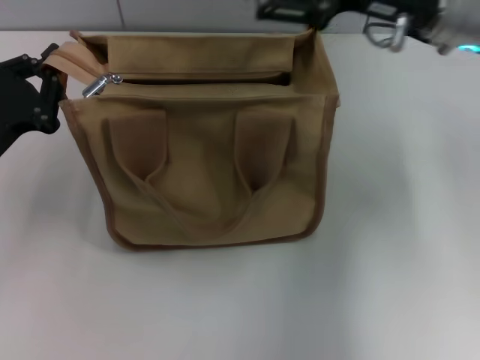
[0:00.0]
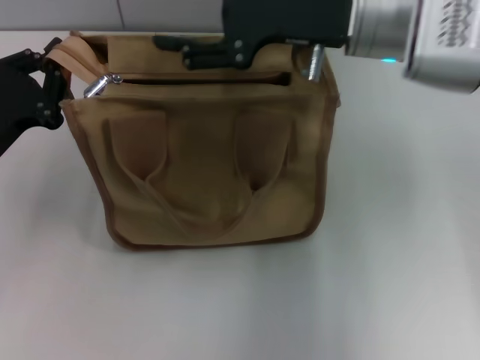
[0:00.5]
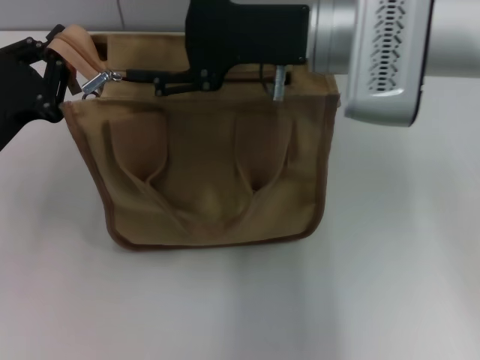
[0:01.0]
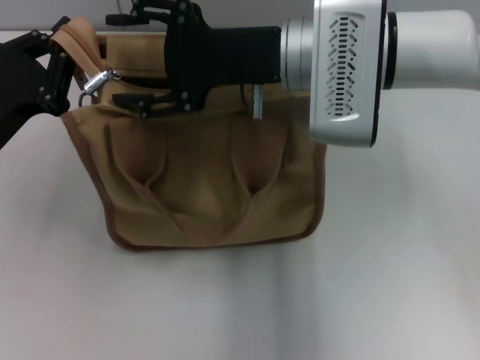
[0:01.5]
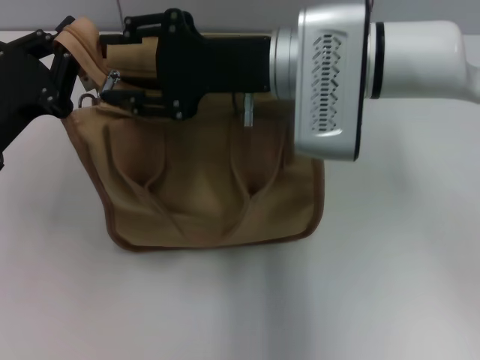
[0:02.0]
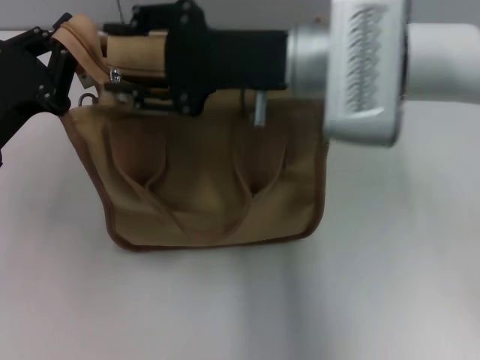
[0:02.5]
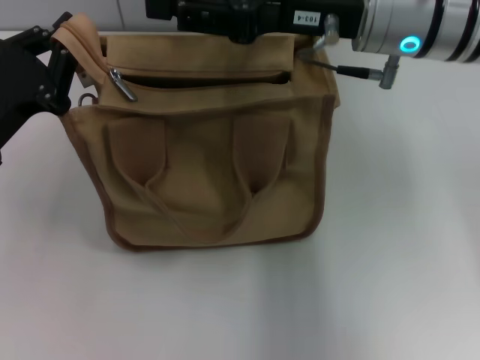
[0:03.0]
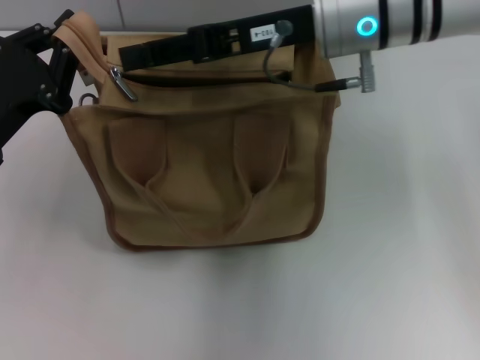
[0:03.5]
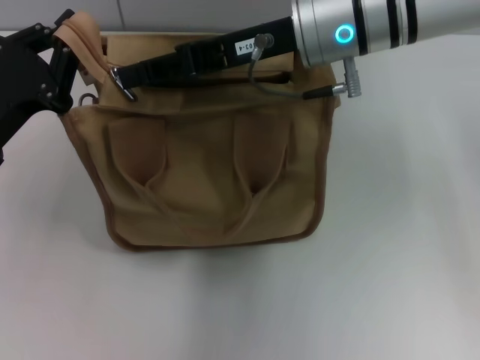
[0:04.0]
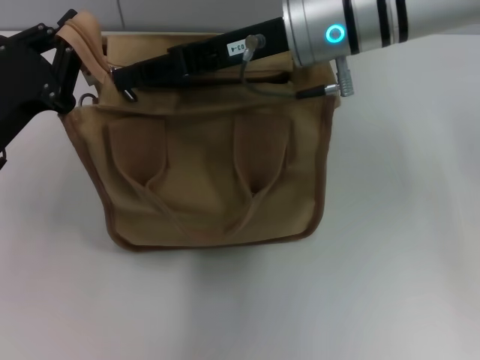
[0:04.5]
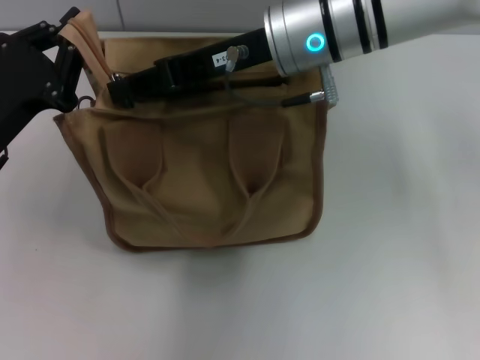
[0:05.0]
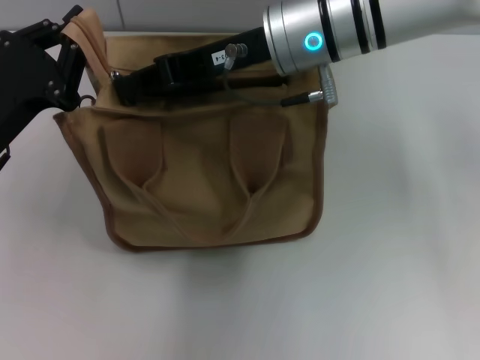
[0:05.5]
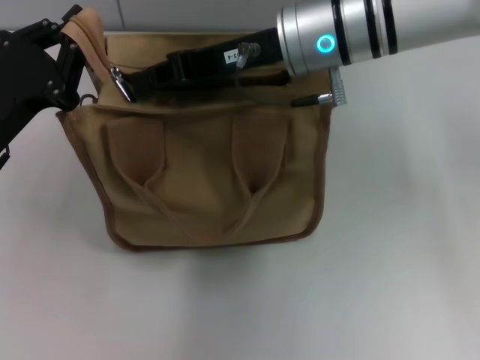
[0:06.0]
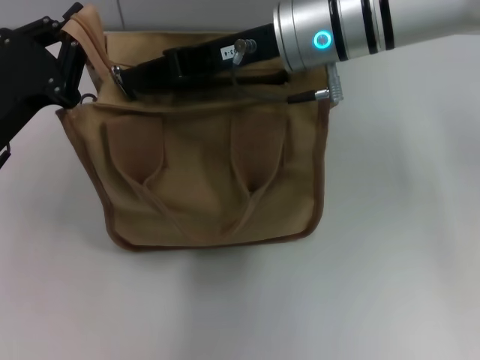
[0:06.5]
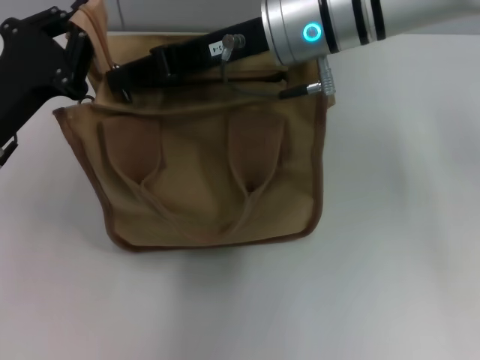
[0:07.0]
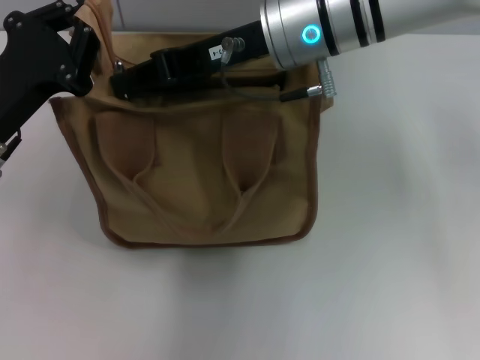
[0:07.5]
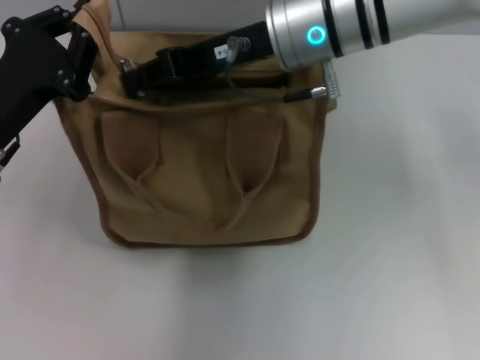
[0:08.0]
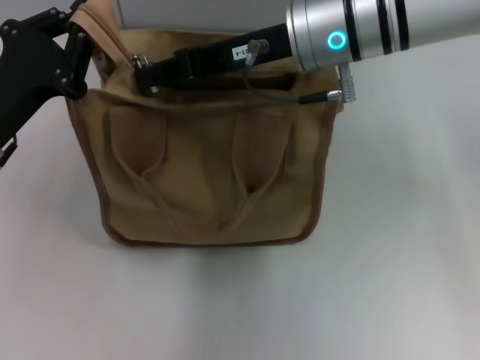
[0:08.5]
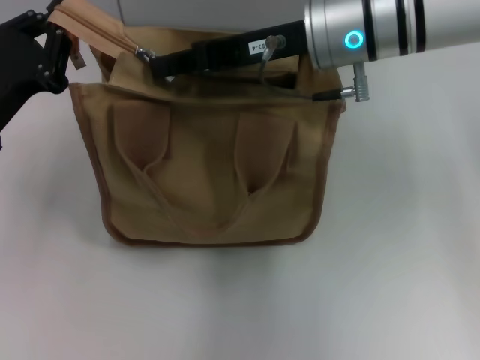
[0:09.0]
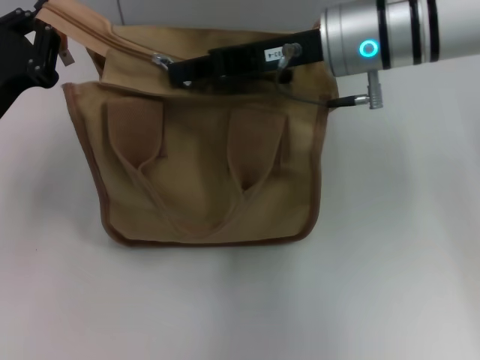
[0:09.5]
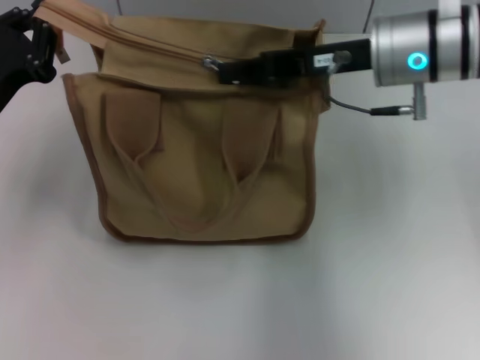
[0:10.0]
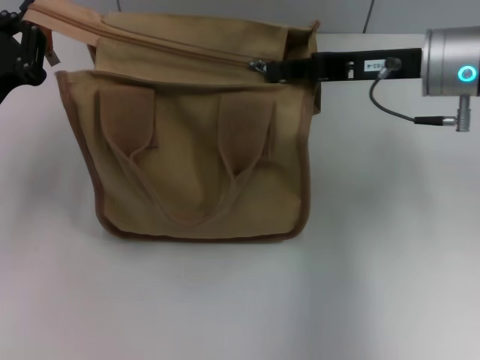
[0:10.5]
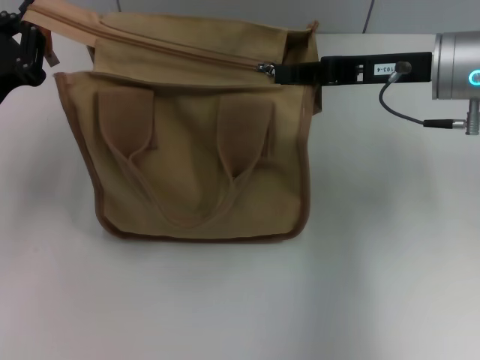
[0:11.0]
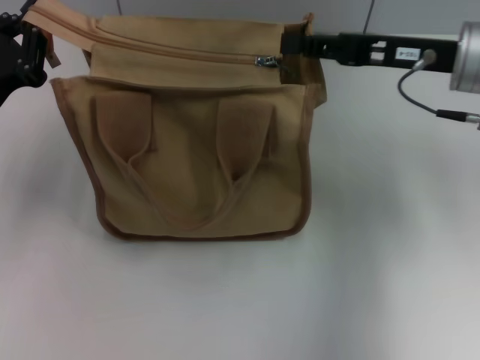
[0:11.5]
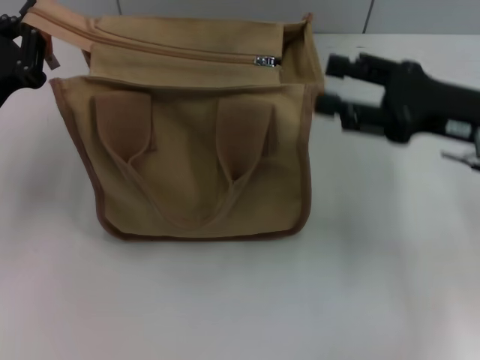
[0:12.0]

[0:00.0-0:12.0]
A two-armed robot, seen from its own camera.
Step, 0:00.0 to 0:11.0: Pull up the zipper with your right hand.
0:00.0 to 0:02.0: The right gripper moves to the left, some 10 cm.
0:04.0 to 0:06.0: The right gripper closes.
0:06.0 to 0:08.0: The grippers move only a little.
0:08.0 to 0:10.0: The right gripper heads to the right, covering some 10 cm.
0:10.0 to 0:12.0: The right gripper is displaced to the right and backward by about 15 cm, and opens.

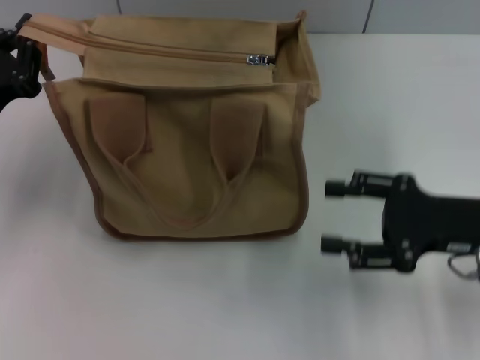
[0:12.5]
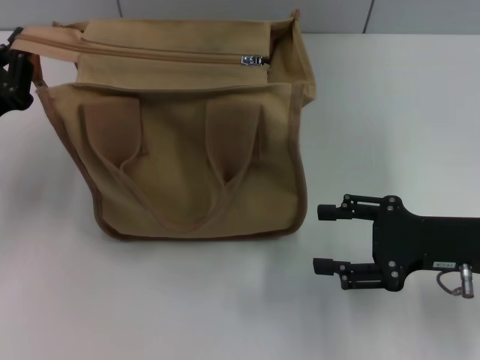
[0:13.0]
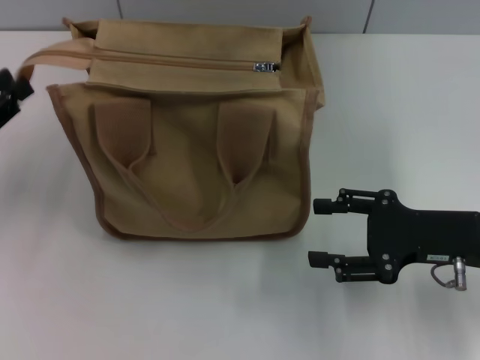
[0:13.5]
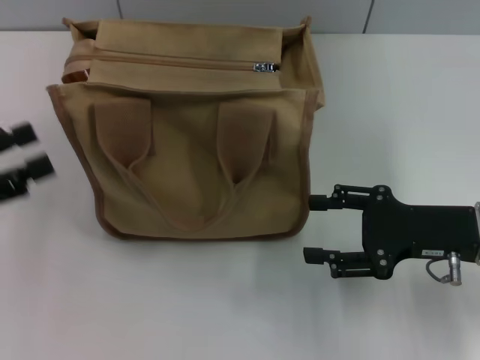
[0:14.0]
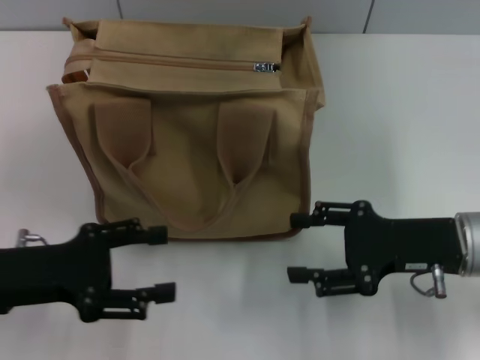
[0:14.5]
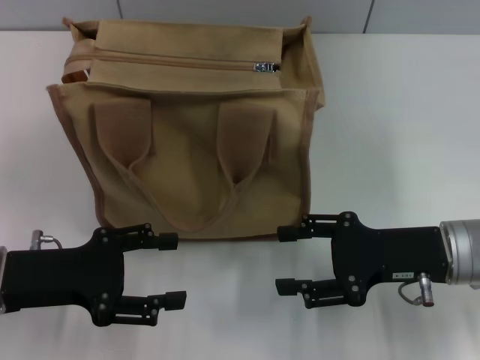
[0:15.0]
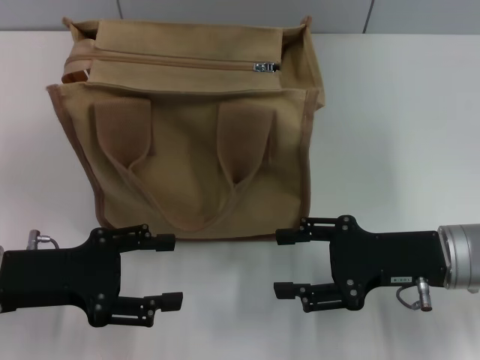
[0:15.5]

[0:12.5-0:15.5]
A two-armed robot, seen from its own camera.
0:12.5 to 0:14.0: The left gripper travels backward and to the left by about 10 cm, and opens its fingers.
0:14.0 to 0:15.5: The left gripper is displaced to the right by about 10 cm.

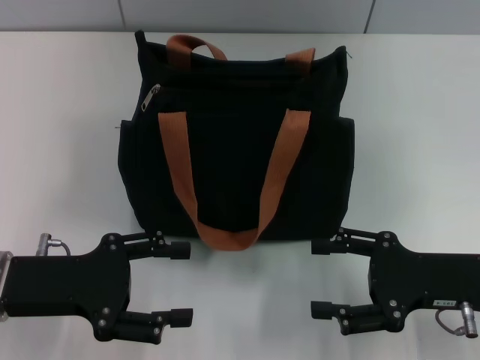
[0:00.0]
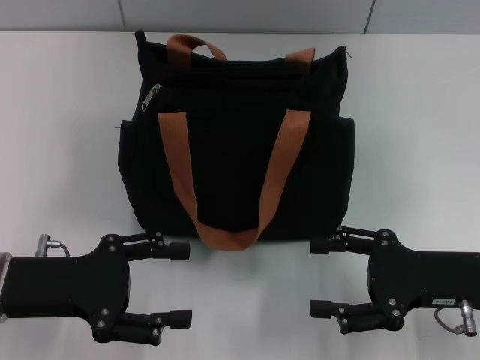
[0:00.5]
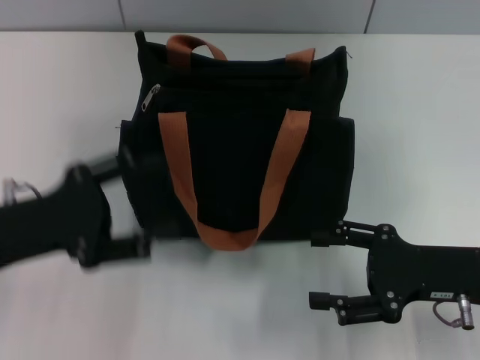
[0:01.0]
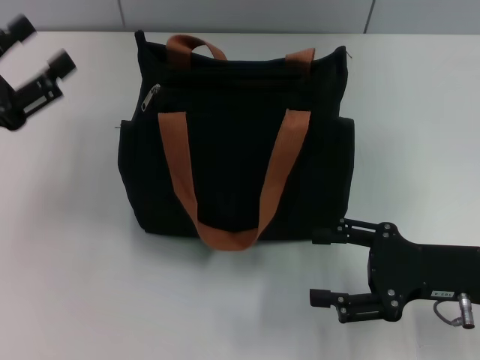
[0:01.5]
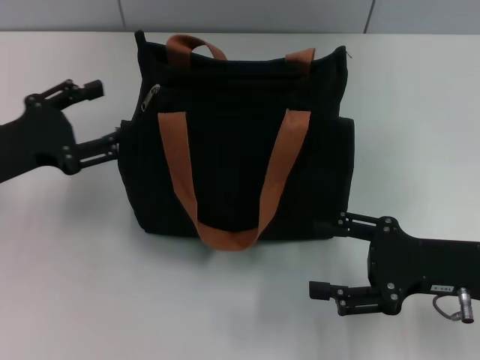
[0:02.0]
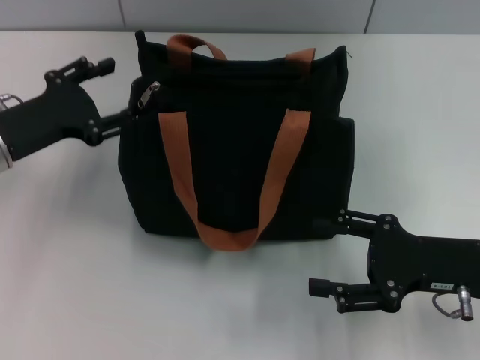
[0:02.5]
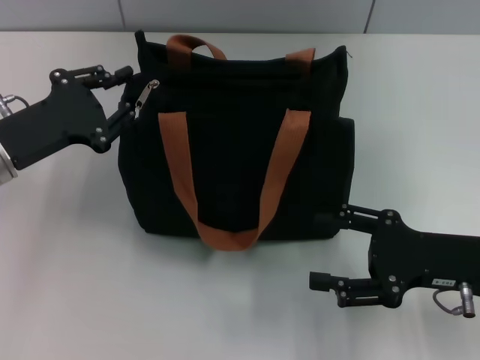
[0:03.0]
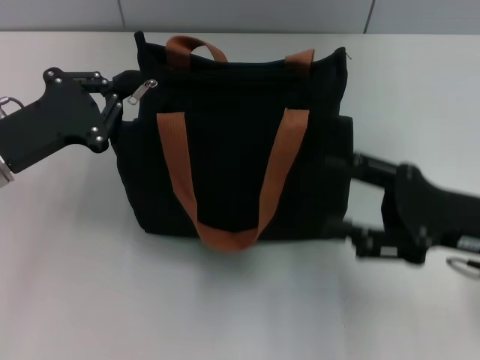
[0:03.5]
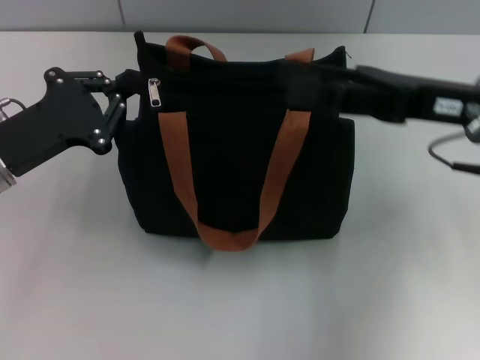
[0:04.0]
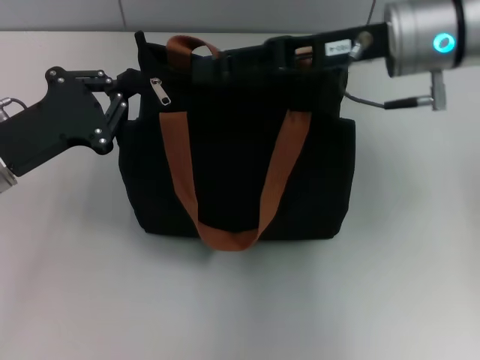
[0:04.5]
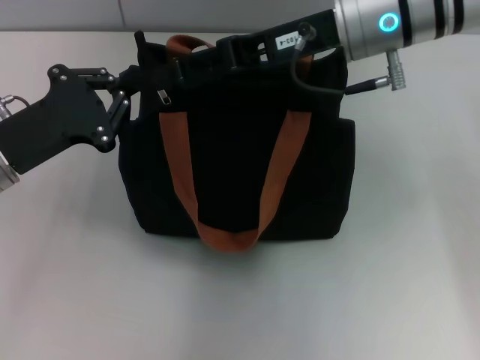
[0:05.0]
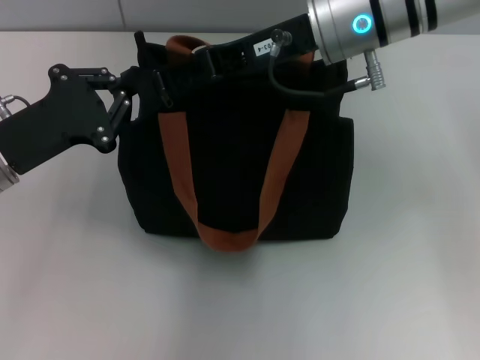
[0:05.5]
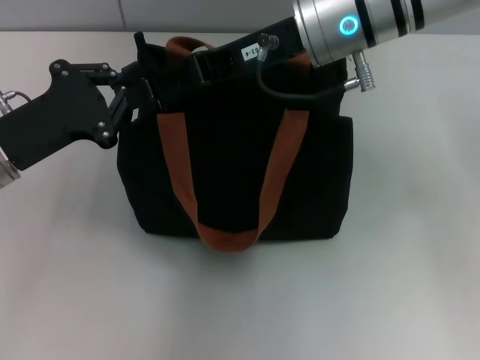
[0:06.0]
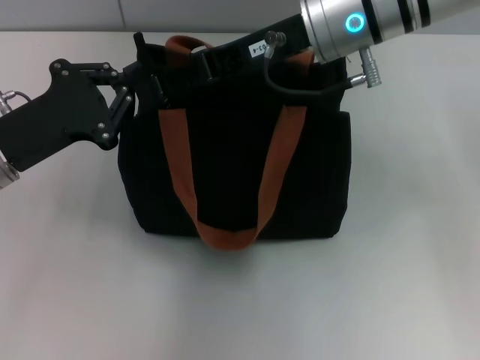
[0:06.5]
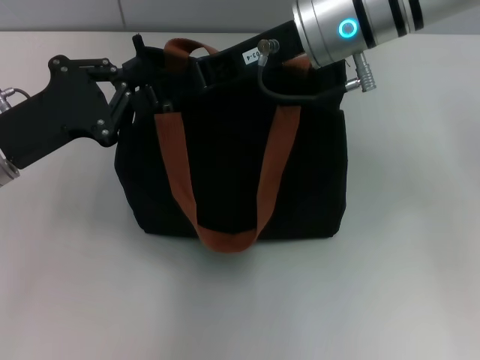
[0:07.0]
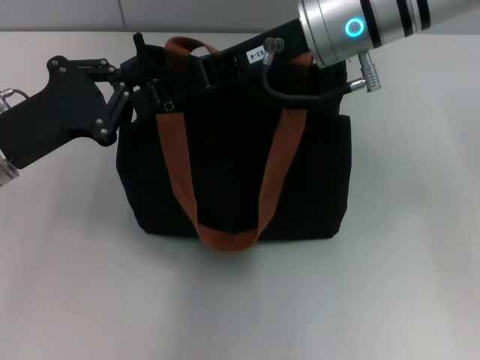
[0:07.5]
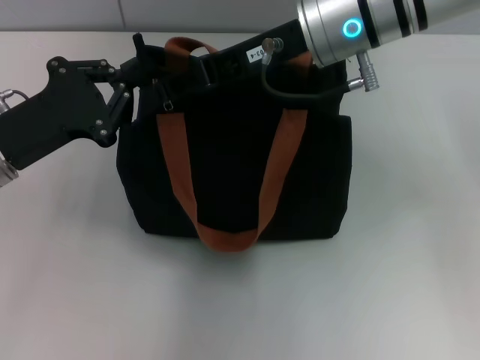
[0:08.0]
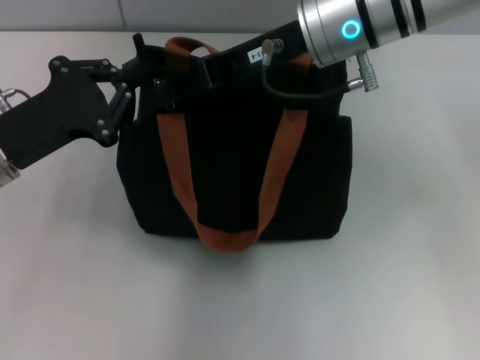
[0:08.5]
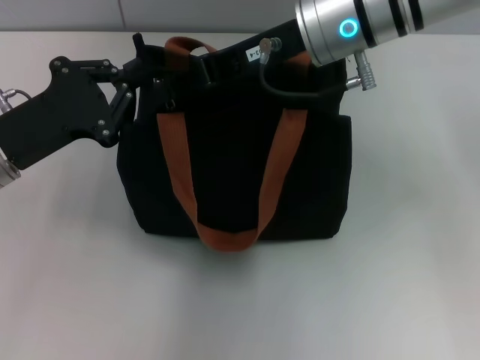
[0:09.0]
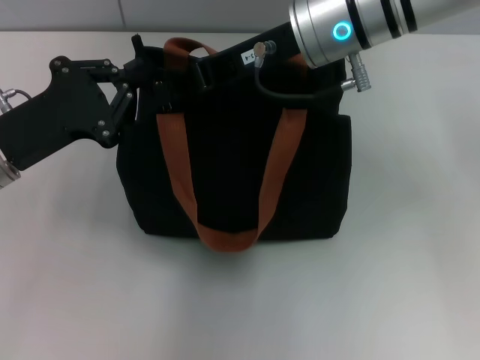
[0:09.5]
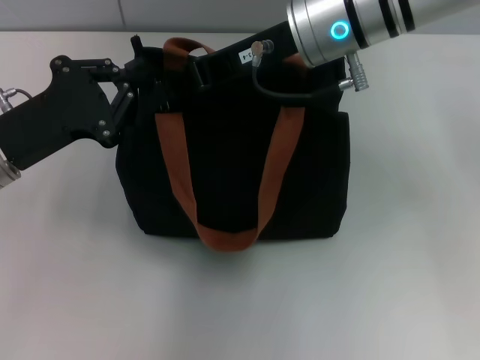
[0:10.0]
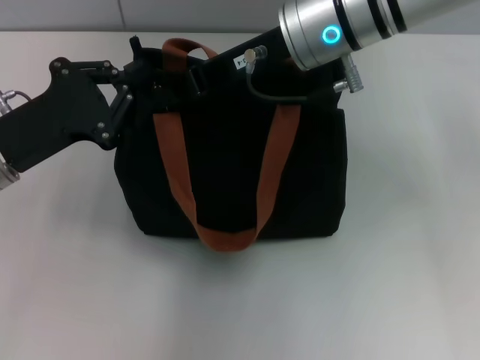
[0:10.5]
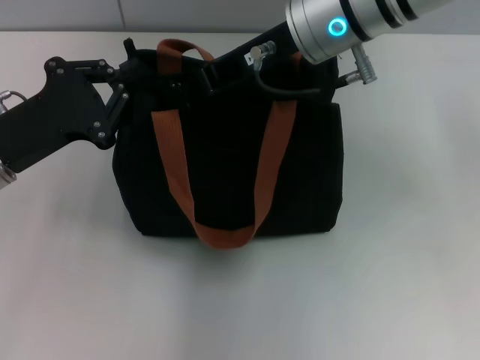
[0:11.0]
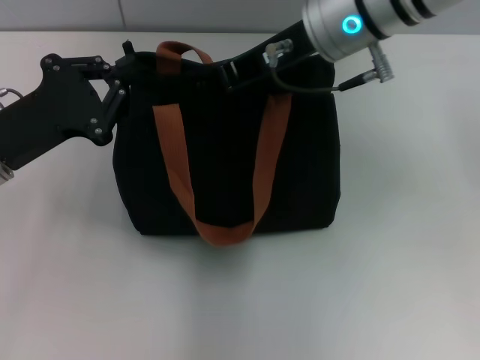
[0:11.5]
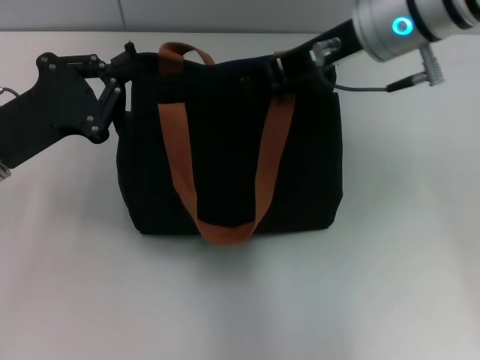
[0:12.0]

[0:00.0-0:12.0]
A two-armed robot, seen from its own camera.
0:00.0 to 0:02.0: The left gripper shifts approximately 5 cm forward.
0:02.0 to 0:04.0: The right gripper moves upward and forward, roughly 15 cm, while the left gripper closes its fingers.
0:04.0 to 0:06.0: The right gripper is displaced to the left and forward by about 15 cm.
0:06.0 to 0:08.0: Both grippers stay about where they are.
0:08.0 to 0:10.0: The right gripper closes.
0:10.0 to 0:12.0: The right gripper ends up roughly 5 cm from where it was.
